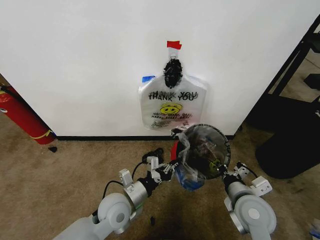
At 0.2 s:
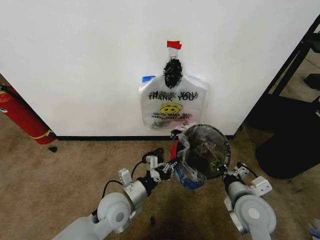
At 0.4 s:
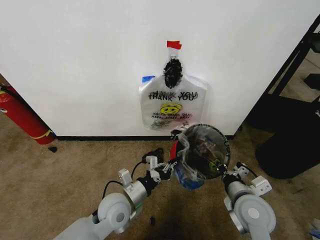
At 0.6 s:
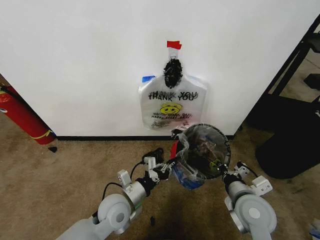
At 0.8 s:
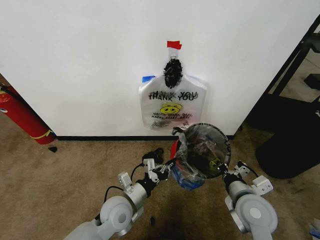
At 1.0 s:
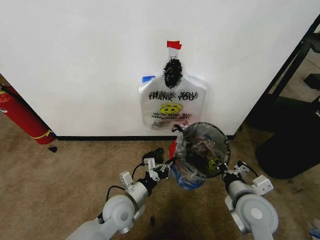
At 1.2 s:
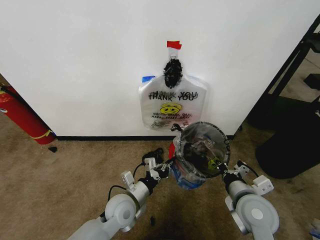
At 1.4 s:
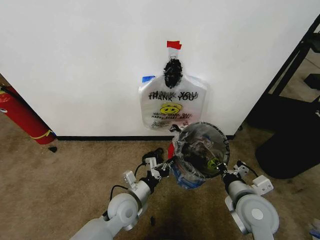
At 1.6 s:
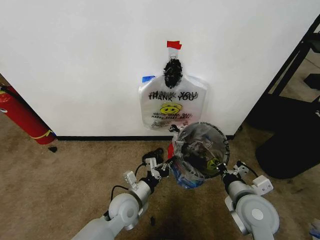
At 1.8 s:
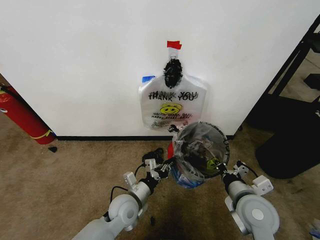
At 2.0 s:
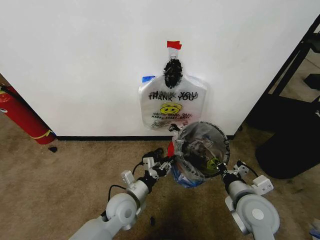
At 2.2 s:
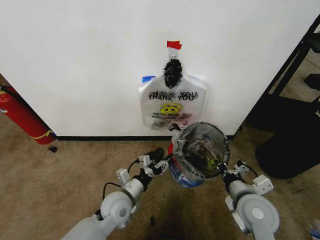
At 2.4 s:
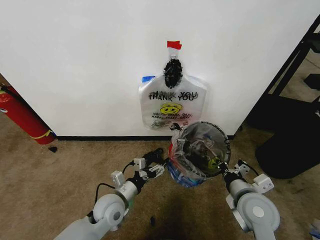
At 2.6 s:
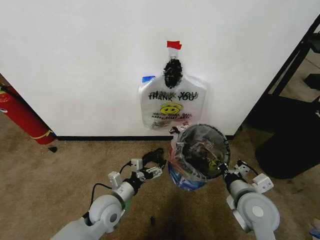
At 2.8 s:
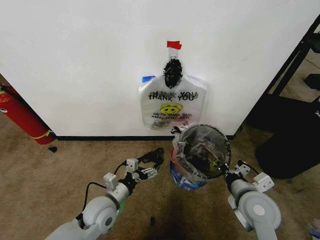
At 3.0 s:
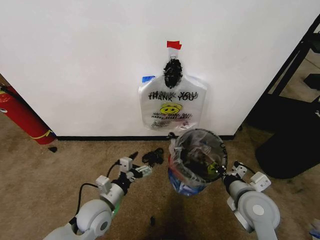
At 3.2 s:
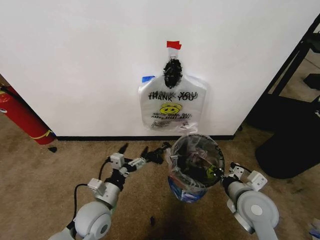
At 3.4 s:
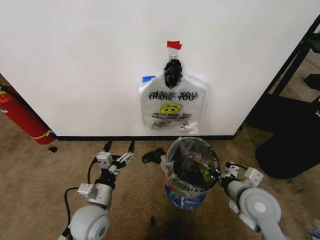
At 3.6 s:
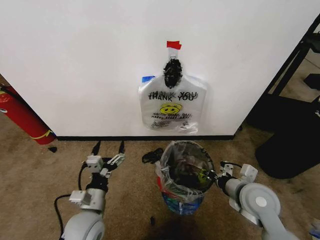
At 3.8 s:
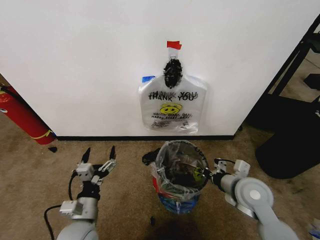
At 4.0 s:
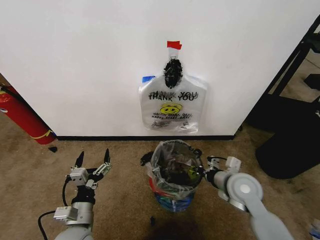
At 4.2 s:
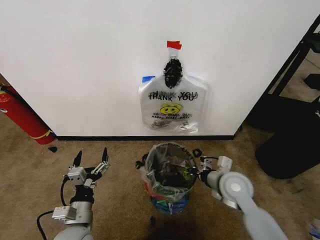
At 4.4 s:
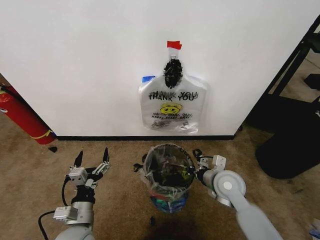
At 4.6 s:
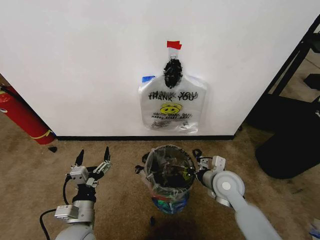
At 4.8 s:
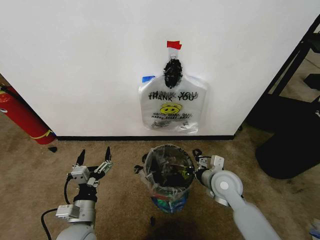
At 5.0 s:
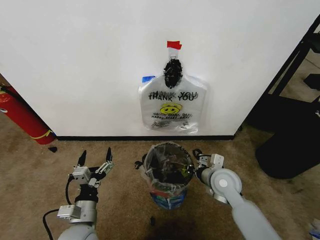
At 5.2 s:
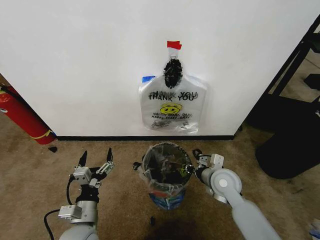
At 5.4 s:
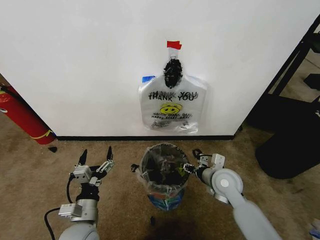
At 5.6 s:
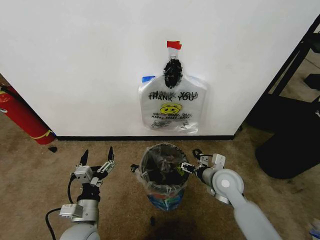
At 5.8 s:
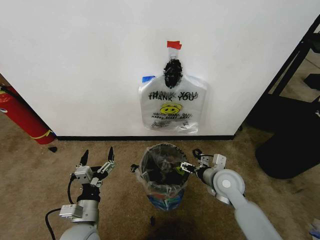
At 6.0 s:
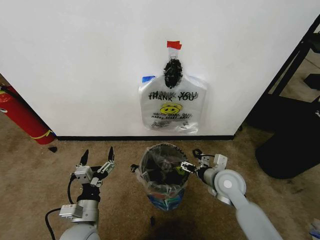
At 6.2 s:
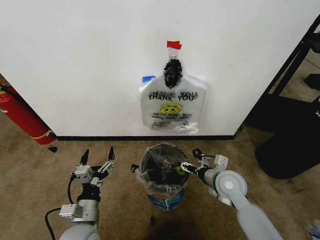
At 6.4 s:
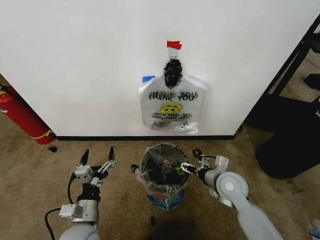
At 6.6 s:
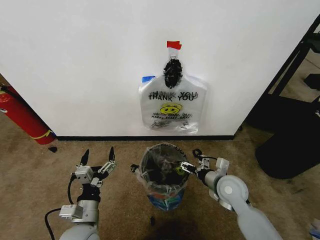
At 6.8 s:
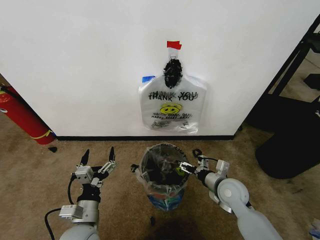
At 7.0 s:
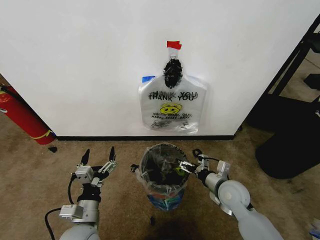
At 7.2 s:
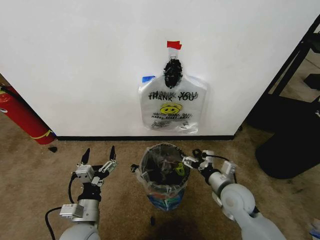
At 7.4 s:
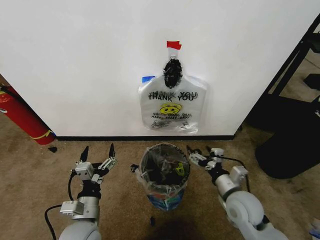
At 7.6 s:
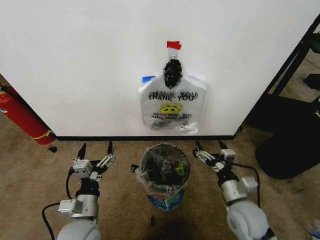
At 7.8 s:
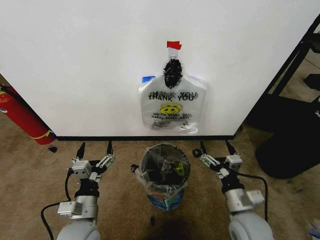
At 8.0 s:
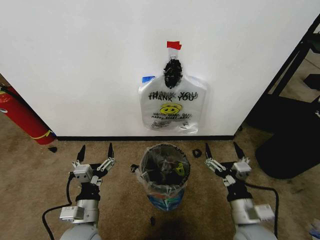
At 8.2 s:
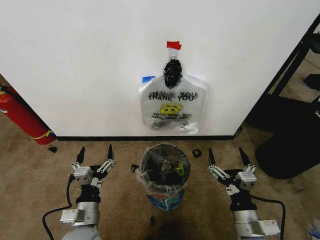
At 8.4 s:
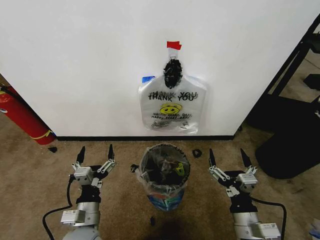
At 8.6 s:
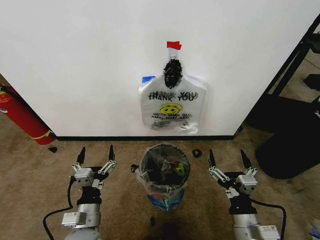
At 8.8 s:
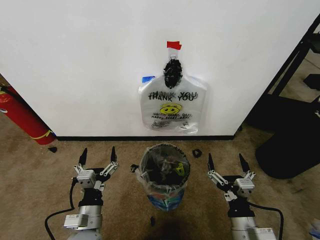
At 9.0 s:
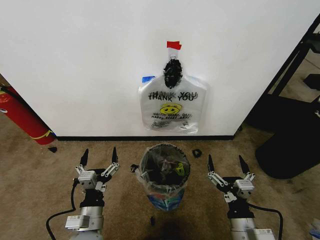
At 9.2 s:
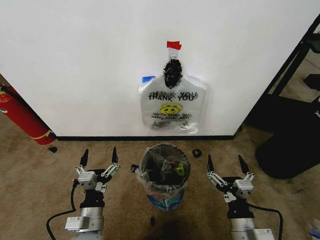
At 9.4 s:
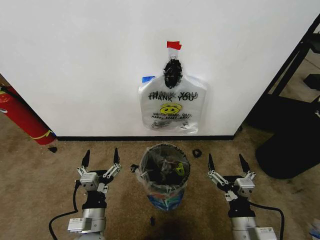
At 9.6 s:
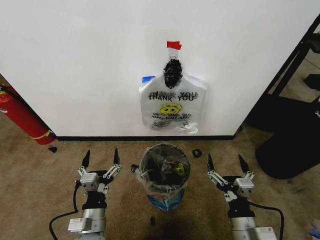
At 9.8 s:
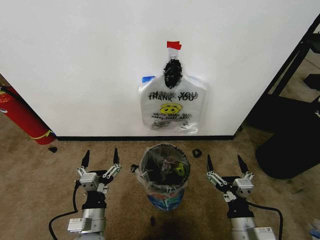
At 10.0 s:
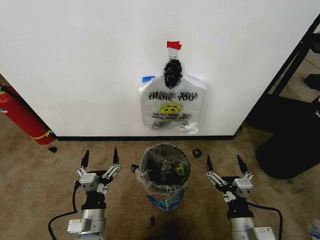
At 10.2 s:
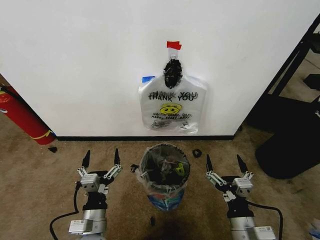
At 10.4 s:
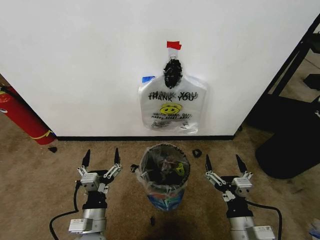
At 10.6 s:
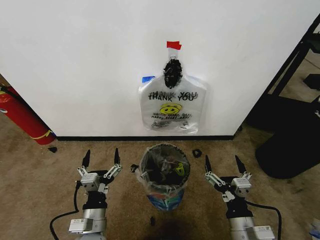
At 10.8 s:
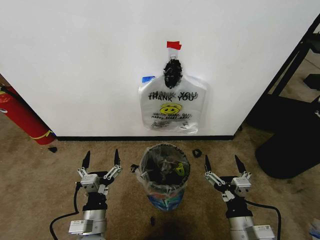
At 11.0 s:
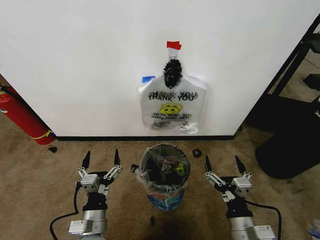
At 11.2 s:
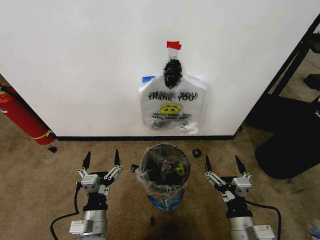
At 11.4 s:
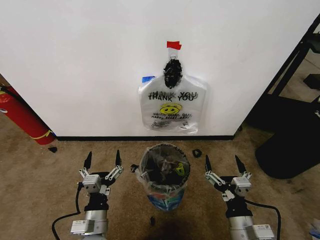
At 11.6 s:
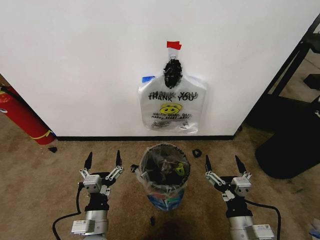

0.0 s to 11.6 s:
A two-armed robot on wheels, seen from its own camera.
Task of the whole recording: Pick up the garbage bag from the wall and place it over the trash bin.
0.0 to 1.4 s: There are only small adjustments of the grippers.
1.4 to 2.8 s: The left gripper shifts roughly 5 cm to the left, and opens its fingers.
2.8 to 4.4 s: The left gripper travels backward by approximately 10 cm, while the right gripper heads forward, covering approximately 10 cm.
4.4 to 5.8 s: The right gripper opens.
5.8 to 7.2 s: The right gripper shifts by some 5 cm.
7.2 to 8.8 s: The right gripper is displaced backward by about 15 cm.
8.8 to 10.2 s: There are only small adjustments of the grippers.
10.2 to 11.6 s: Both grippers stay put.

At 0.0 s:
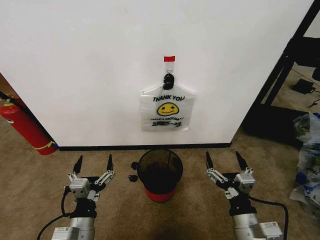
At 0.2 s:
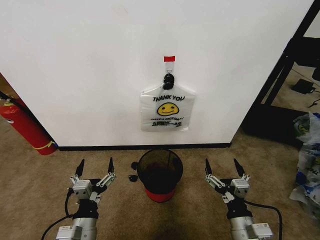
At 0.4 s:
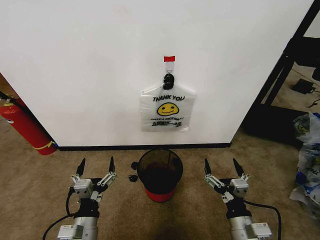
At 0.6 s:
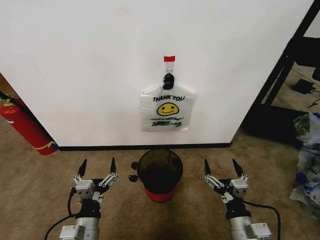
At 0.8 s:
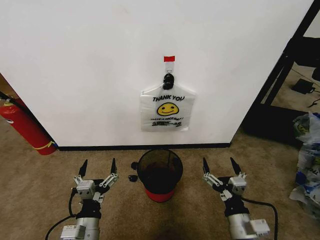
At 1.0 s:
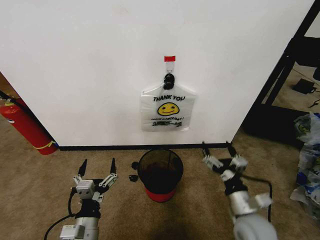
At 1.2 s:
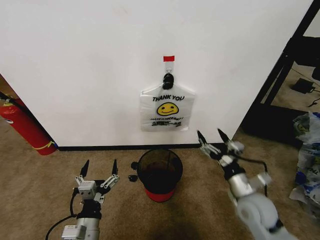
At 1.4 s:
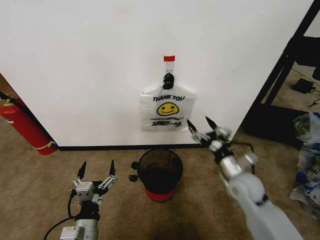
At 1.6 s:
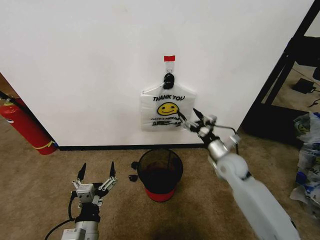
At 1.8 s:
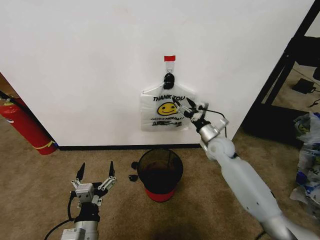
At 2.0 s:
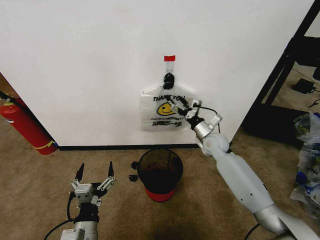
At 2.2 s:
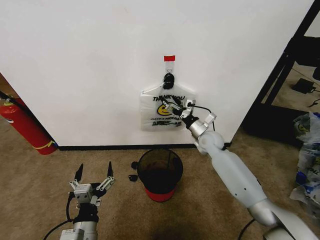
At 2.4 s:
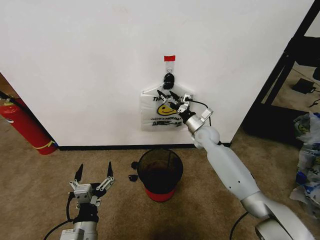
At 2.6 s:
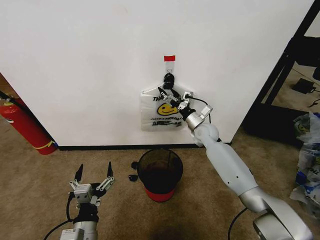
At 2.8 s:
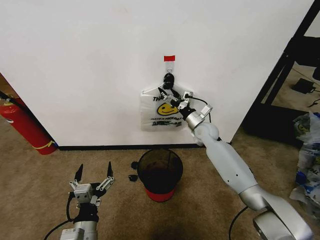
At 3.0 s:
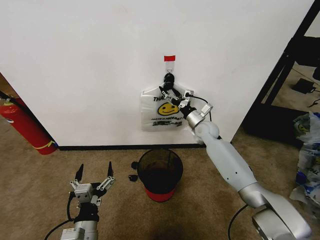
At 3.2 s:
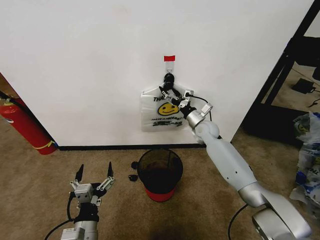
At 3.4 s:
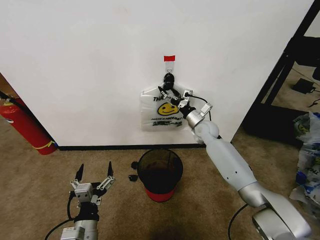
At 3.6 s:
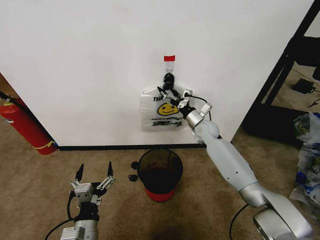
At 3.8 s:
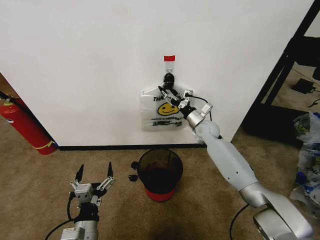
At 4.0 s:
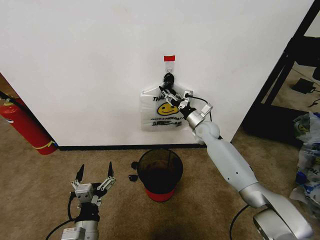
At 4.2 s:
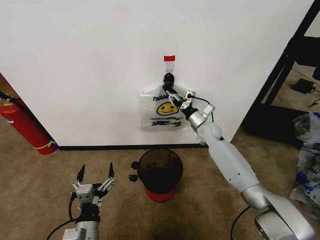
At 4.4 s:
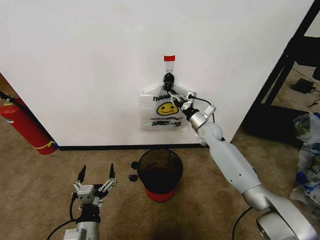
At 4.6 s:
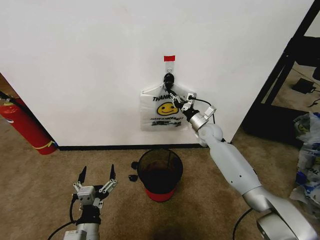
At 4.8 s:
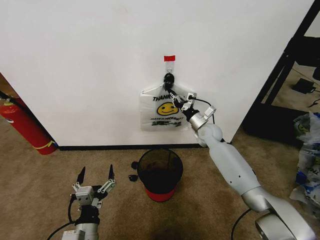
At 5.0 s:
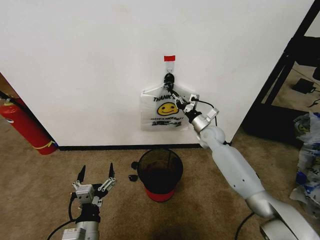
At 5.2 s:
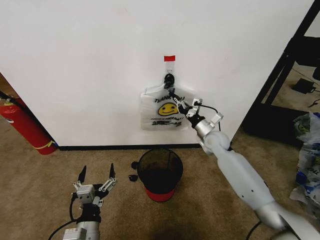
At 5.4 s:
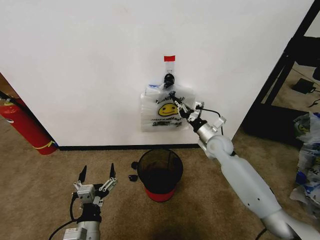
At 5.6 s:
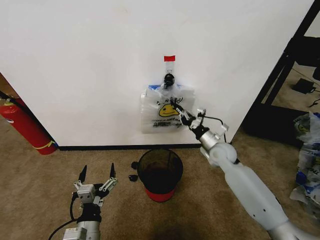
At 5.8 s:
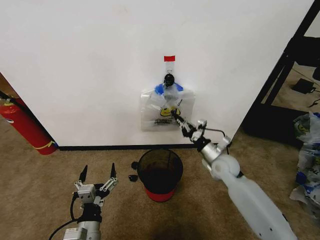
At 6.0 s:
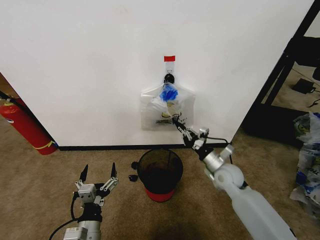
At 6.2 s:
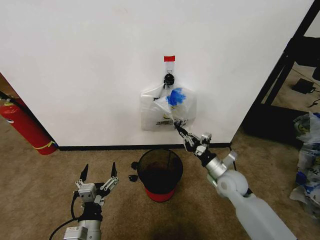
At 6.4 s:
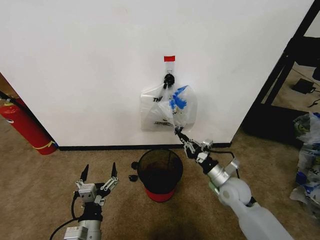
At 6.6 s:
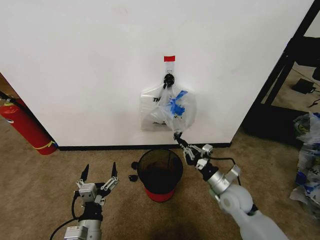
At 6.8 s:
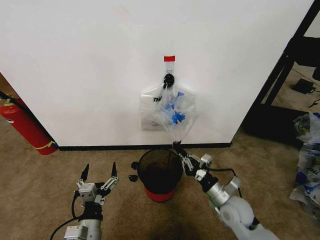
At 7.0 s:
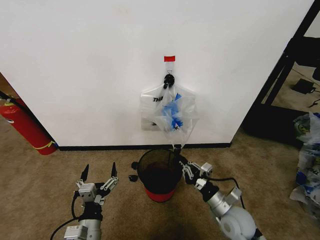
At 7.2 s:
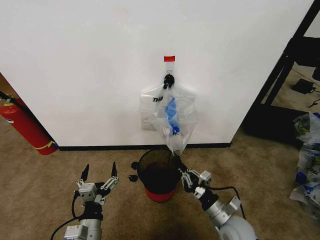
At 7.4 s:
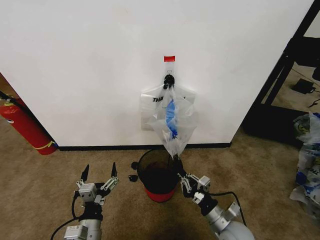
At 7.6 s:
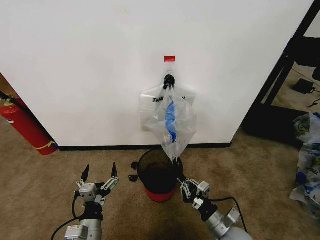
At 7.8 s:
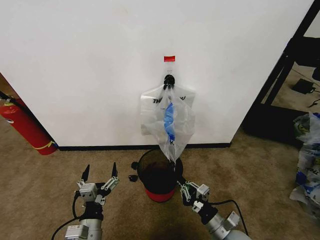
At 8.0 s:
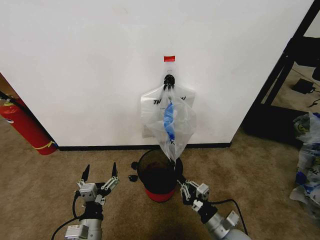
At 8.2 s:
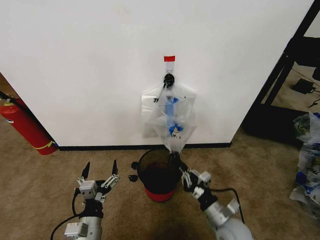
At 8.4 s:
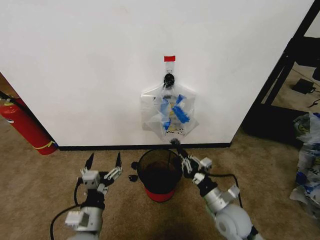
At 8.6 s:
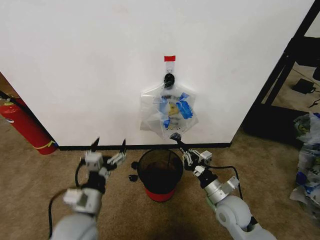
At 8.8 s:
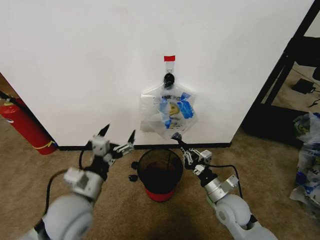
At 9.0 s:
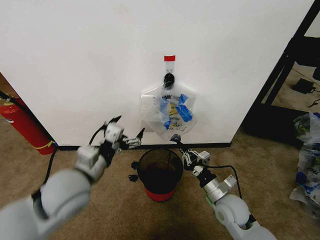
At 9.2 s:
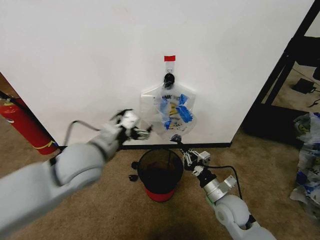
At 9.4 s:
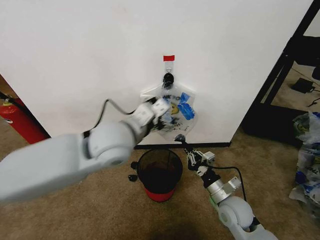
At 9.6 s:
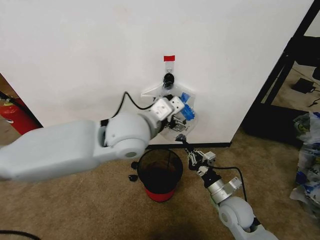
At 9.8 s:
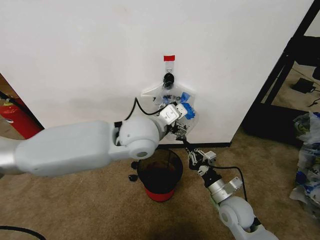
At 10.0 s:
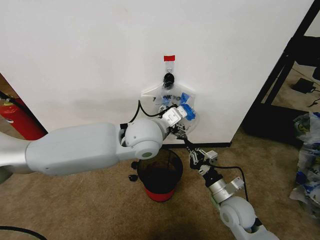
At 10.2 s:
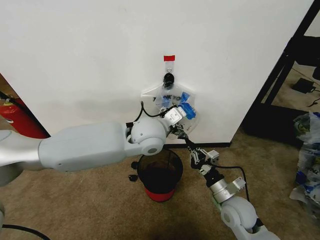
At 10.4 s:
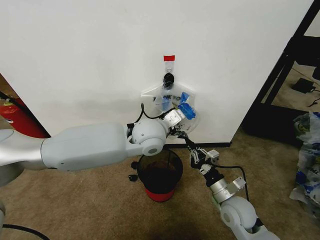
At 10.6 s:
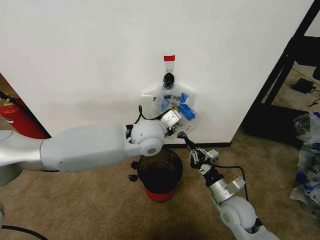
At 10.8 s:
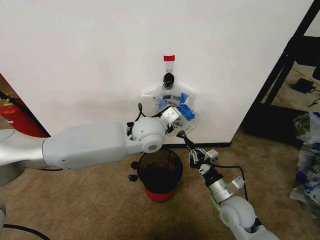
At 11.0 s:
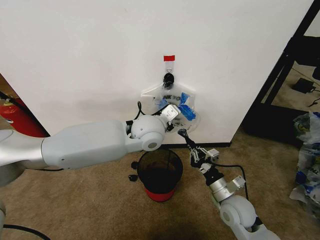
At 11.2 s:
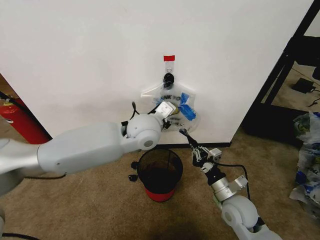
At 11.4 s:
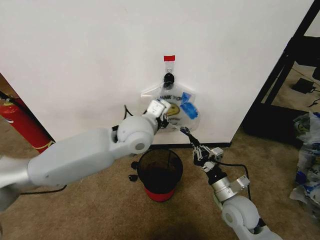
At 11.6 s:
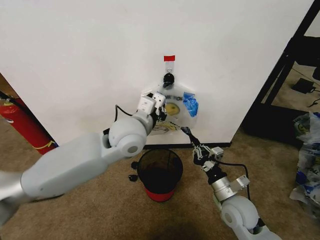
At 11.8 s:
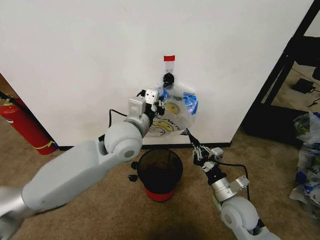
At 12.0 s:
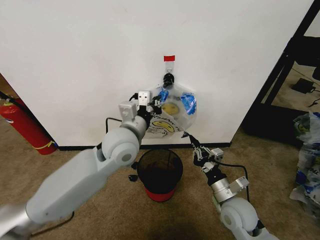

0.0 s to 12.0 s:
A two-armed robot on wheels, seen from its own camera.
Task of the whole recording: Pick up the garbage bag from the wall and place it over the trash bin.
1.6 to 3.0 s: The right gripper is displaced forward by about 20 cm.
3.0 to 4.4 s: The right gripper closes up.
4.4 to 6.0 s: The right gripper shifts about 20 cm backward.
6.0 to 7.6 s: The right gripper travels backward by roughly 20 cm.
7.6 to 9.0 s: The right gripper moves forward, about 10 cm, while the left gripper shifts roughly 25 cm upward and forward.
9.0 to 10.4 s: The left gripper goes roughly 20 cm to the right and forward.
10.4 to 12.0 s: The left gripper shifts roughly 5 cm to the left, and closes.
